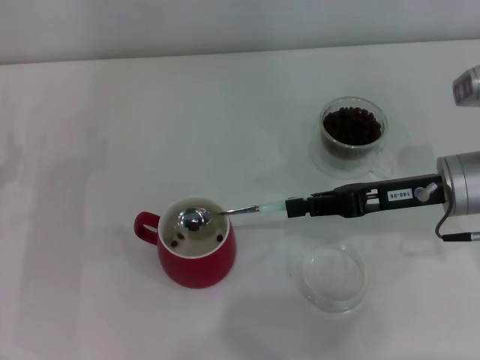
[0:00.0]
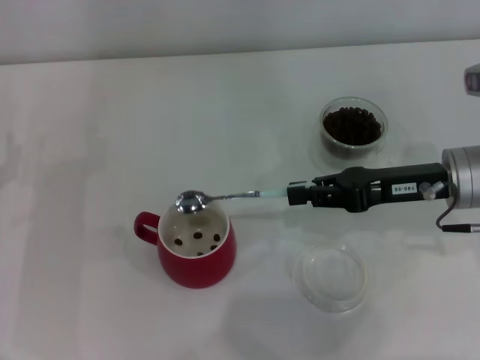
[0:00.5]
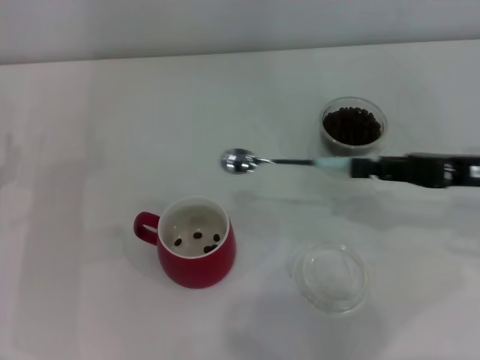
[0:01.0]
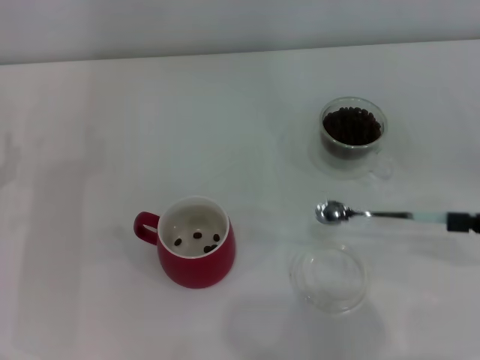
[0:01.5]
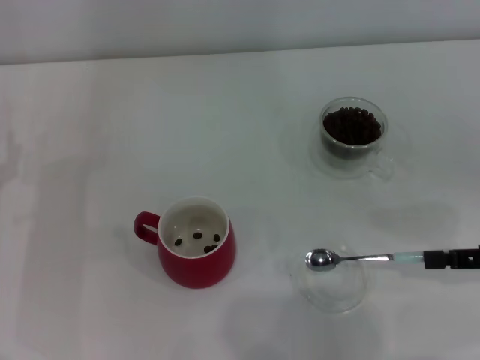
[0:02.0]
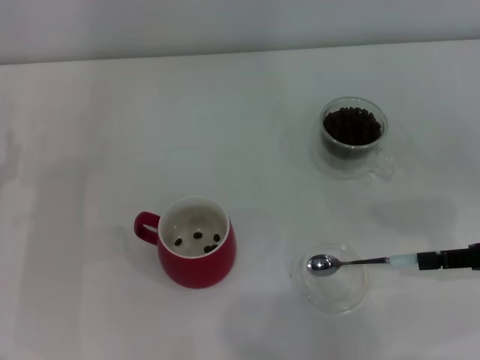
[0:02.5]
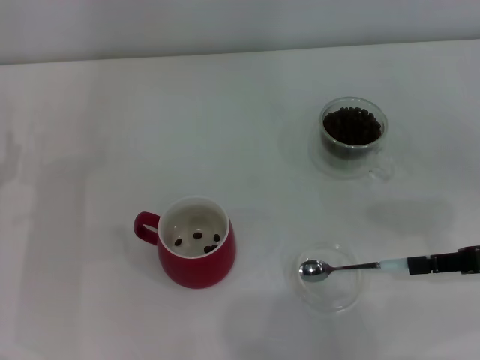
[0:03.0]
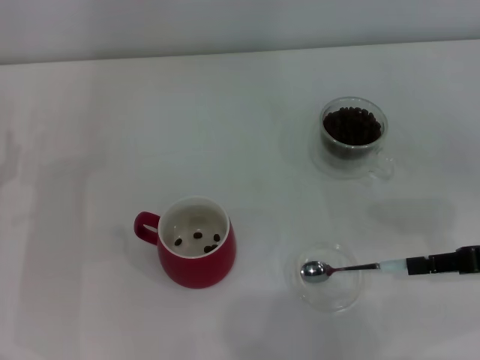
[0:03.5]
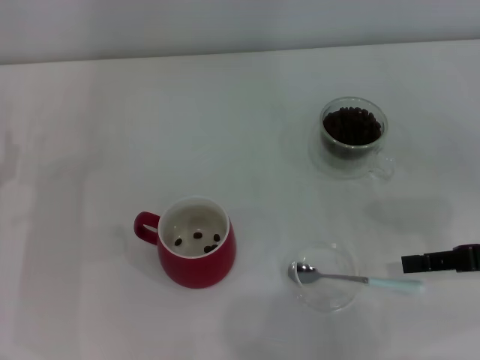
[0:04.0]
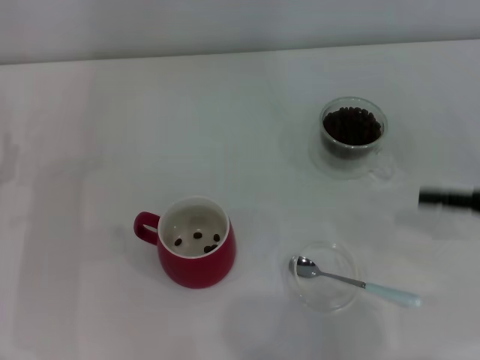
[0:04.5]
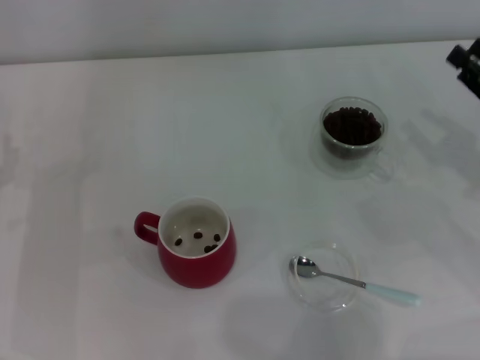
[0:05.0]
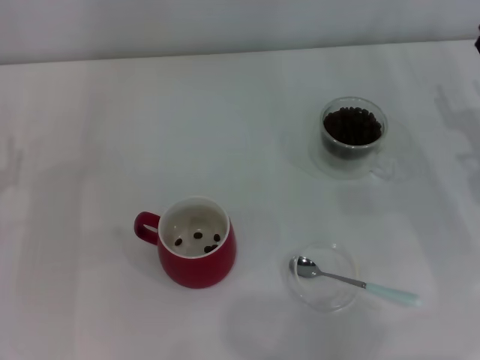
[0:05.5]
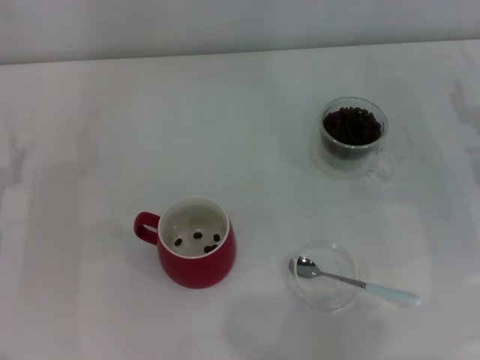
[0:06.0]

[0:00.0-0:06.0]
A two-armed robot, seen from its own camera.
Task of the whole recording: Use a blue spoon to take out the coffee beans from the glass and pour them into the red cup.
Step, 0:01.0 to 0:04.0: Place the spoon back in its original place with the right gripper.
0:00.0 to 0:02.0: The right gripper heads to the right and backward, covering roughly 15 cm.
0:02.0 to 0:04.0: The grippers stay close to where they were, moving slightly.
0:04.0 to 0:06.0: The right gripper shifts about 10 cm forward, and opens its fingers.

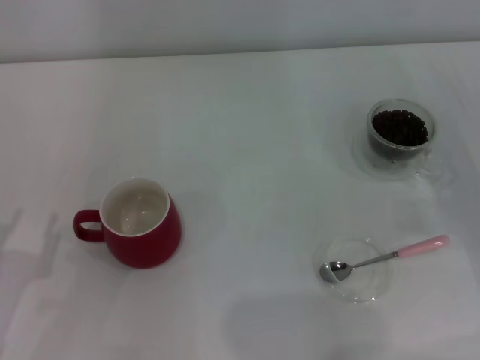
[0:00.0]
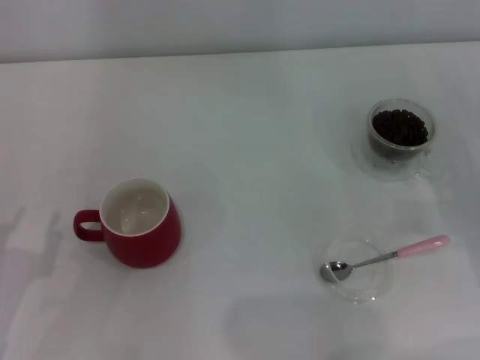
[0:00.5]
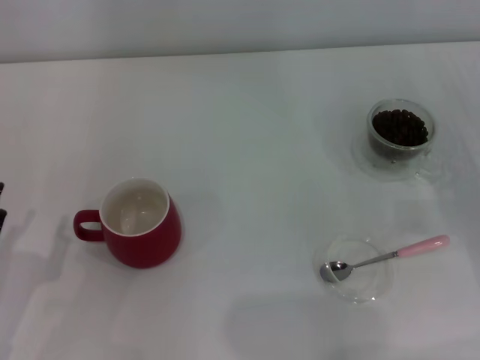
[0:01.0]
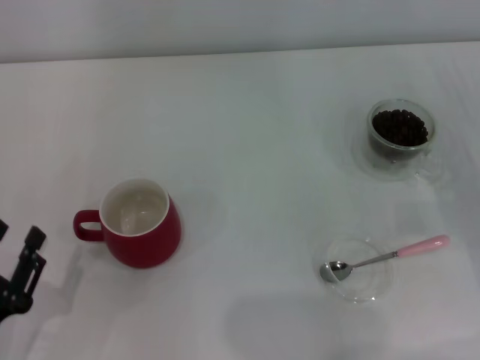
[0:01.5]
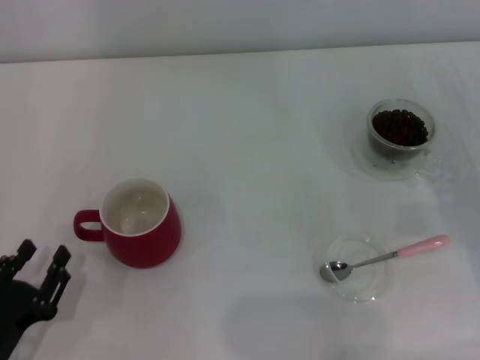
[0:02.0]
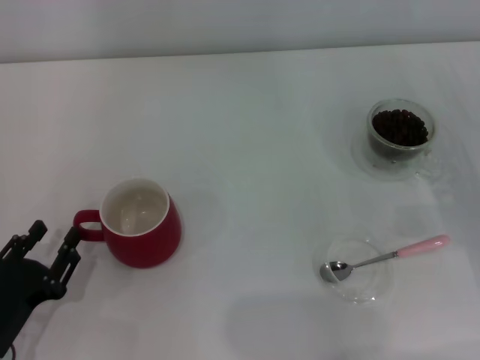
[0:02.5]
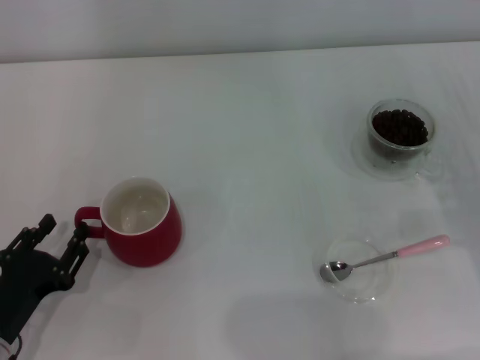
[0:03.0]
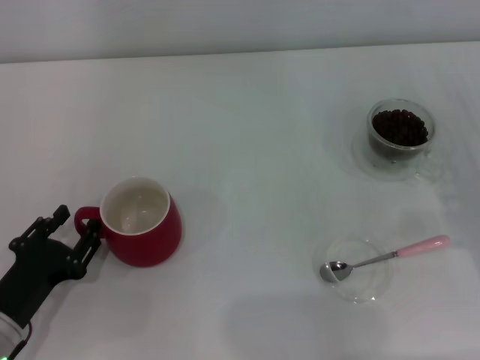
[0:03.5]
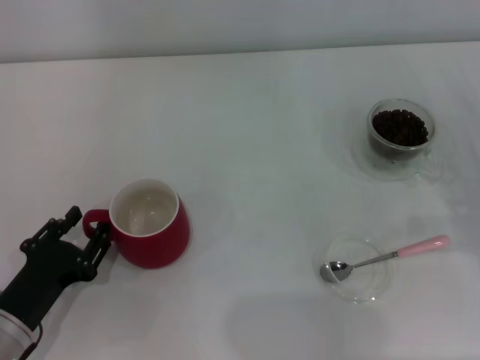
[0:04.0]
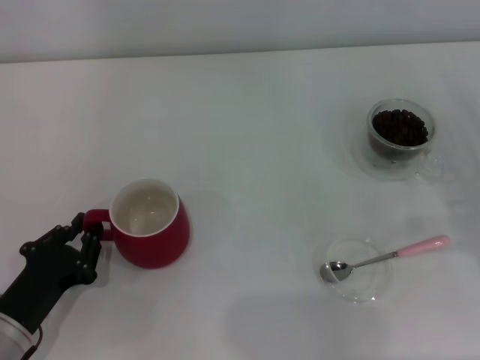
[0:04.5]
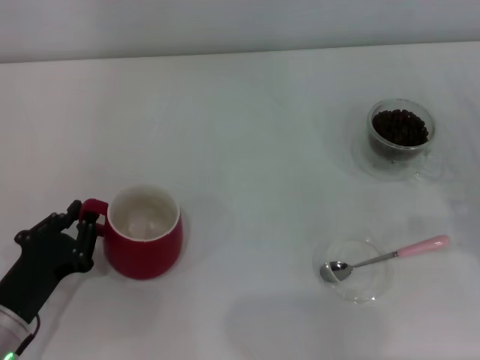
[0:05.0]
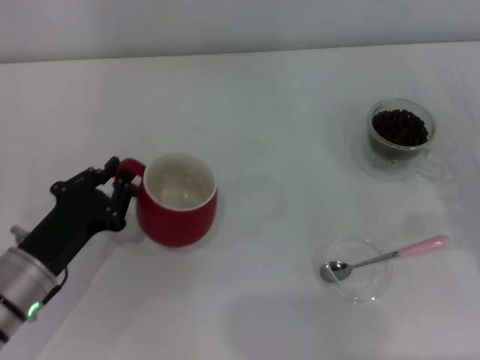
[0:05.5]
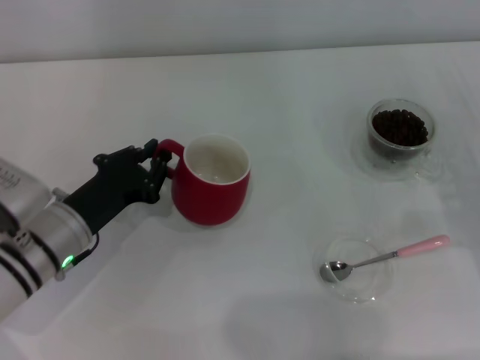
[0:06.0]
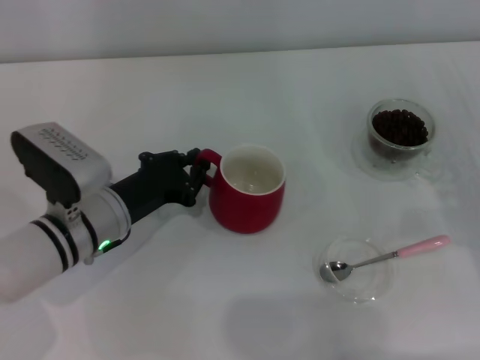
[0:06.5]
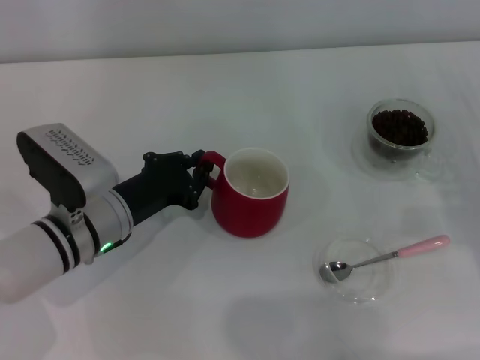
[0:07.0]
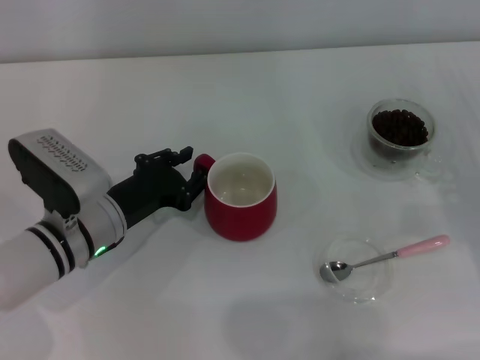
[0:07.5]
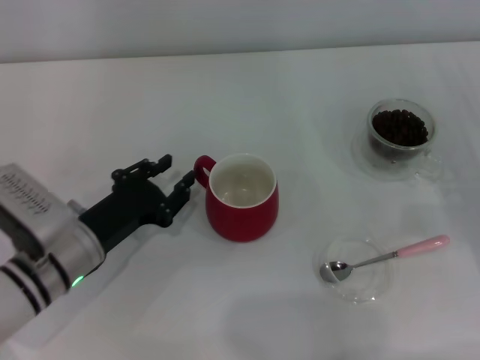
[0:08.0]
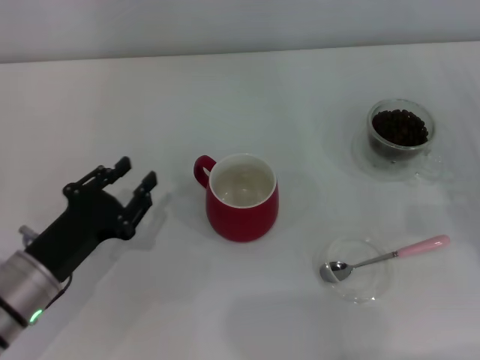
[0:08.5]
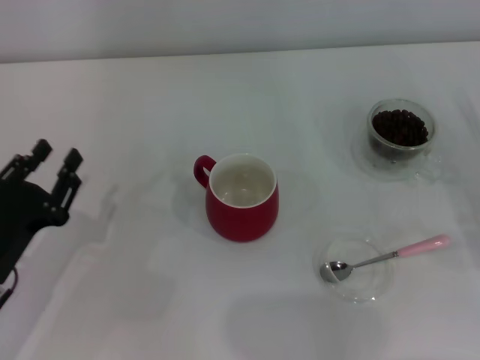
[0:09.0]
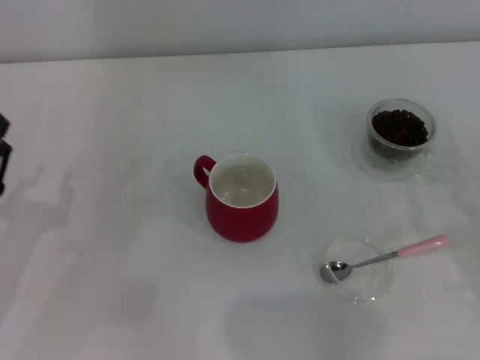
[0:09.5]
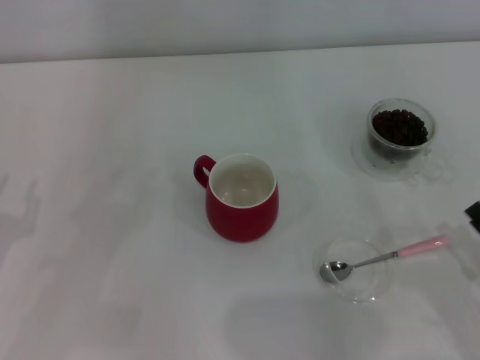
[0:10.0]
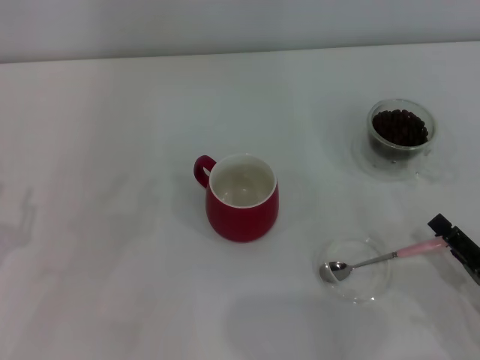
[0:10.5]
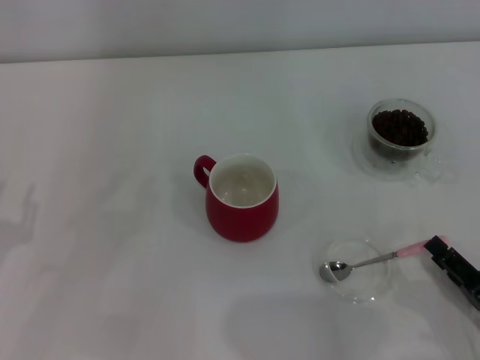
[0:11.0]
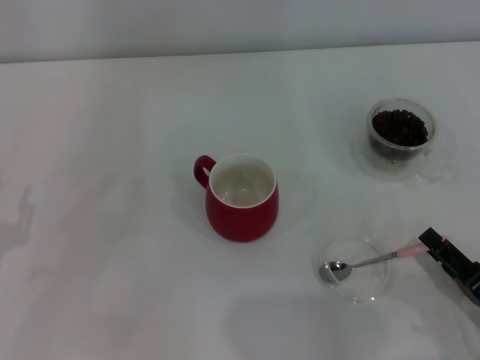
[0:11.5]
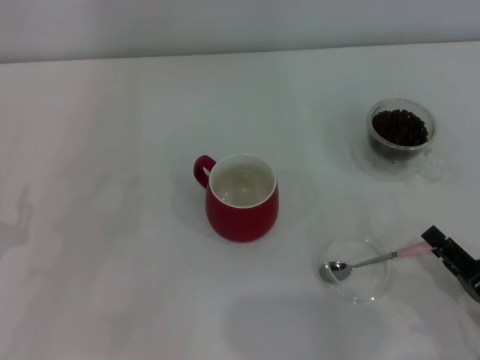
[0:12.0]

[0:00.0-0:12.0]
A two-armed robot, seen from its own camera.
Task of the whole recording: Use a pink spoon to take out the coffee beans from the glass and pour them into the red cup.
Step, 0:00.0 to 0:08.0: Move the cup to the center of view with the left gripper.
0:00.0 to 0:02.0: The left gripper moves about 5 cm.
0:02.0 to 0:04.0: The left gripper travels forward by about 5 cm.
0:04.0 to 0:06.0: The left gripper heads forward and to the right, covering roughly 10 cm, and closes up.
0:06.0 to 0:08.0: The left gripper opens up.
0:08.0 to 0:10.0: The left gripper is displaced to the left and backward by roughly 15 cm, while the right gripper goes roughly 15 cm backward.
0:10.0 to 0:12.0: The grippers stay close to where they were, moving slightly.

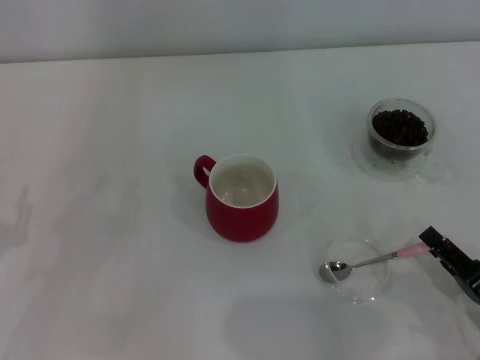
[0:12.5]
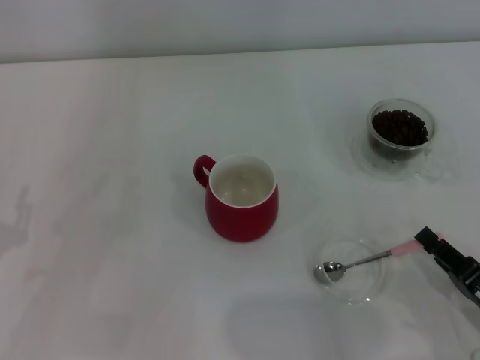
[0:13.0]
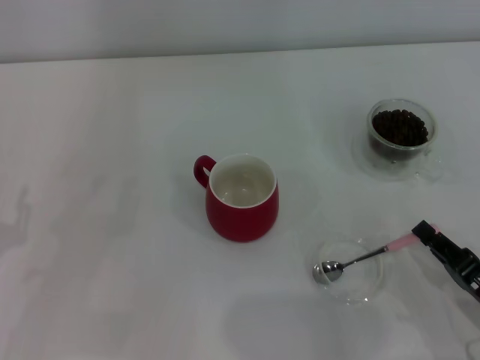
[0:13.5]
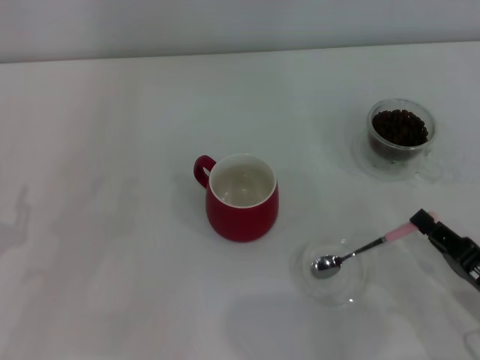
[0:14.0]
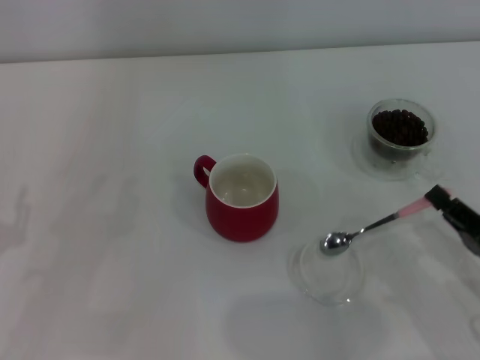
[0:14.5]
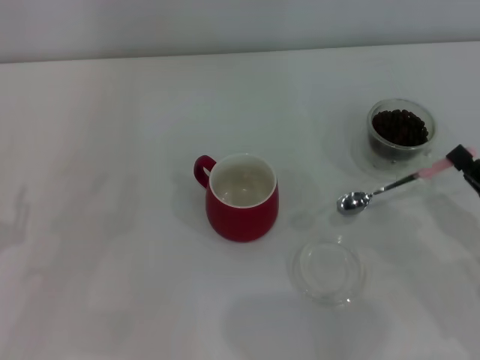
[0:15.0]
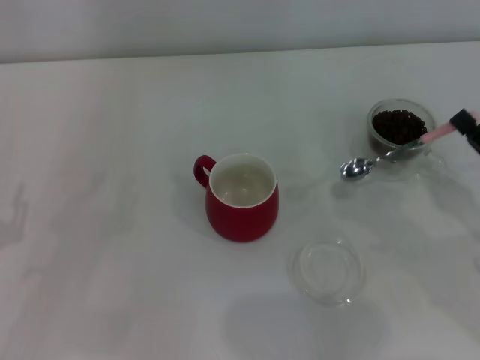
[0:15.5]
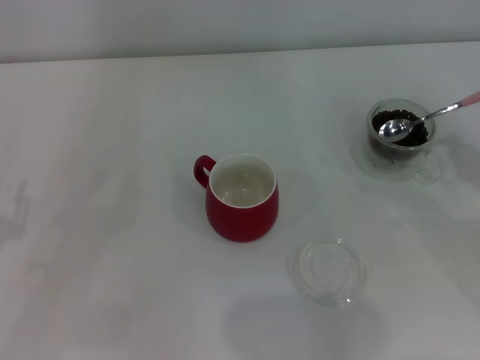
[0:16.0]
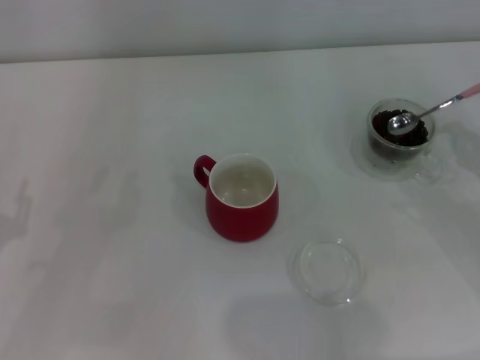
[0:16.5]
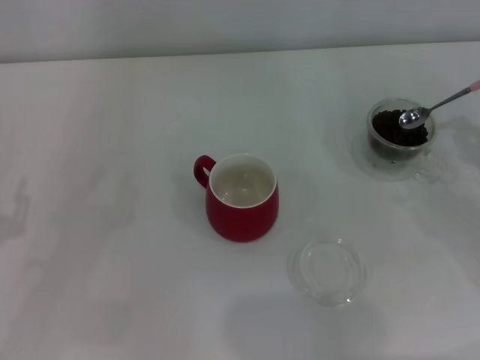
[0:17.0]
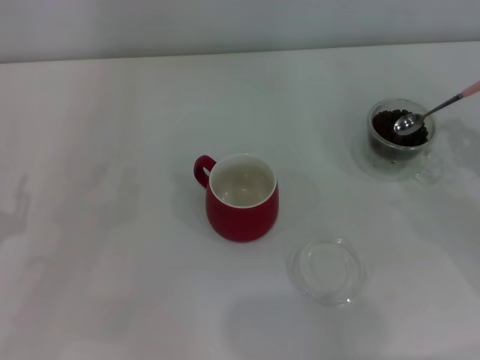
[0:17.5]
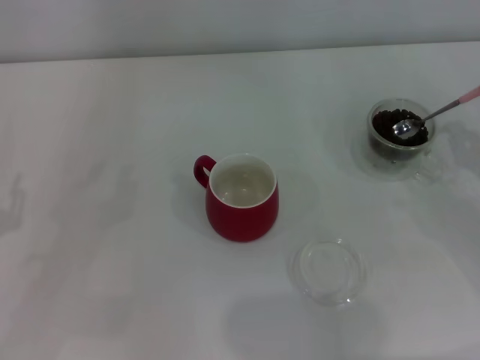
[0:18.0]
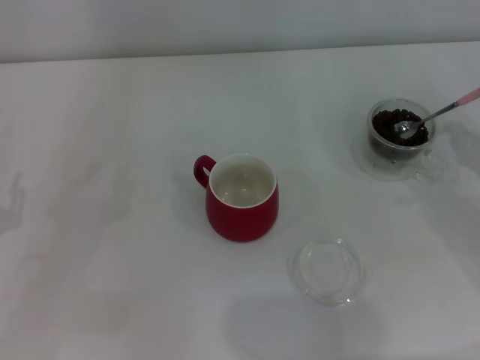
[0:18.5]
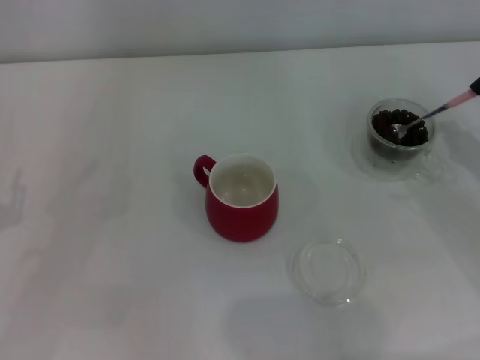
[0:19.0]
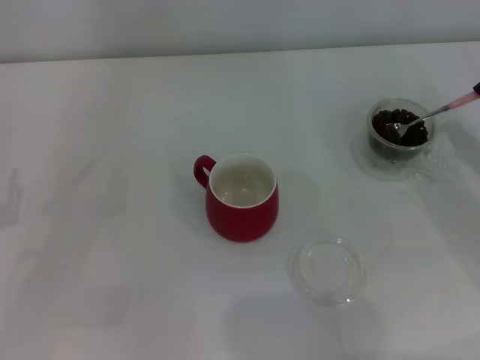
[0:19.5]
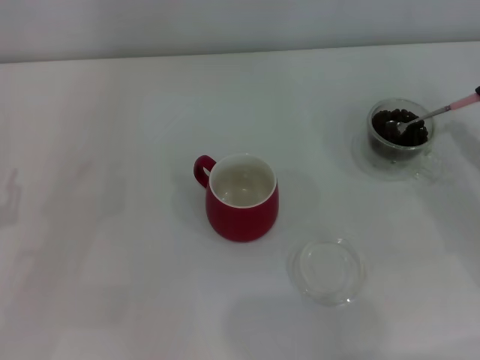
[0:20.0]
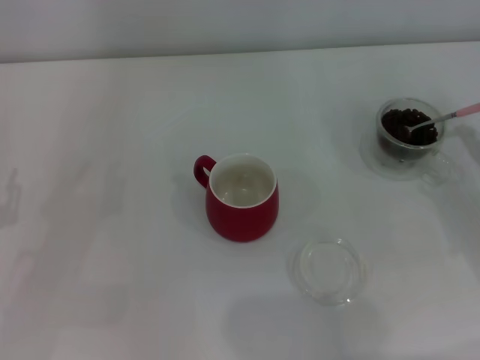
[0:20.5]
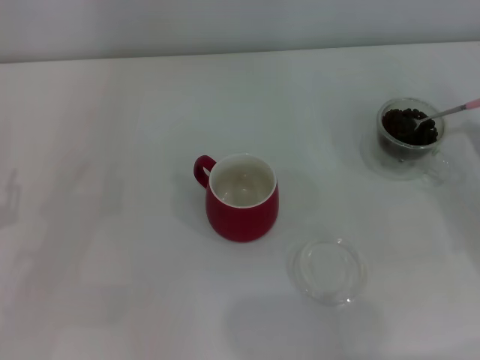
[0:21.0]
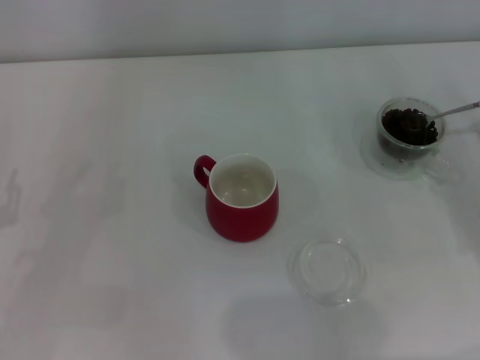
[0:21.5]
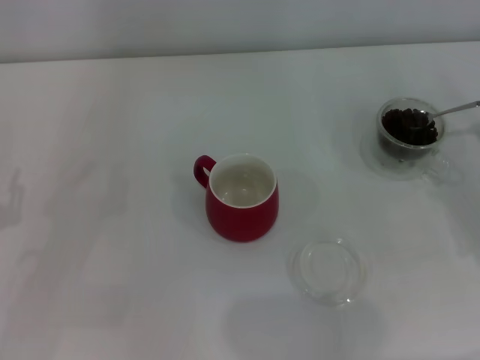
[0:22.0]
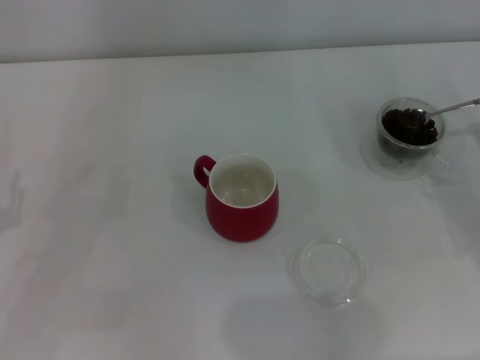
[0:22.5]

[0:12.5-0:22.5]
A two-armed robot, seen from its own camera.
Task of the whole recording: Use a pink spoon to take out the coffee beans from the glass and pour them into the red cup.
Step, 0:12.5 to 0:14.5: Pick up the spoon with the right gripper.
0:12.5 to 0:14.5: The right gripper closes up.
0:14.5 to 0:16.5: The right gripper shifts some 10 cm forward and to the right.
